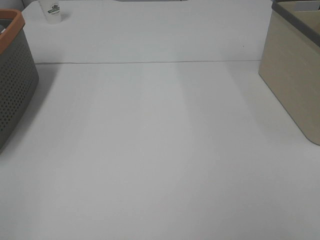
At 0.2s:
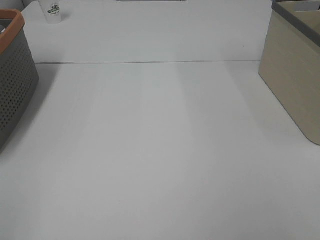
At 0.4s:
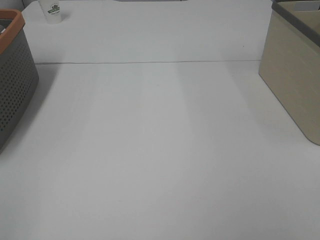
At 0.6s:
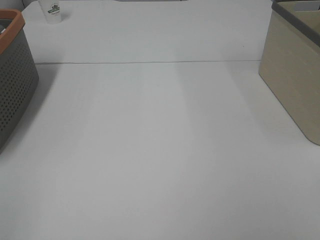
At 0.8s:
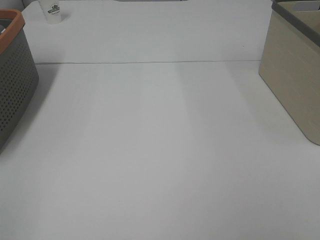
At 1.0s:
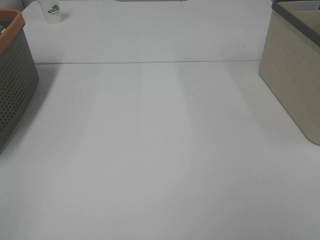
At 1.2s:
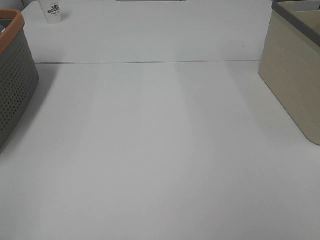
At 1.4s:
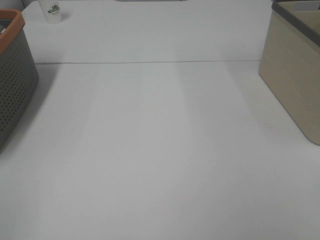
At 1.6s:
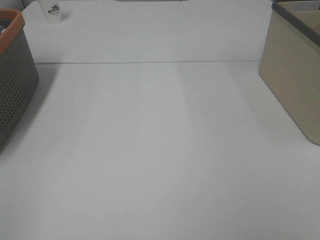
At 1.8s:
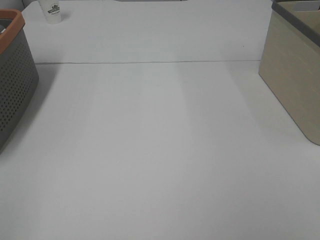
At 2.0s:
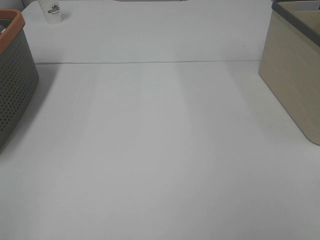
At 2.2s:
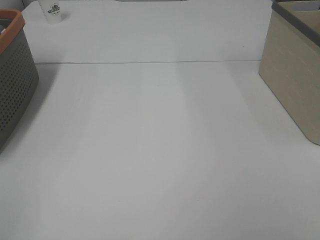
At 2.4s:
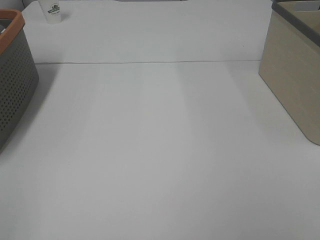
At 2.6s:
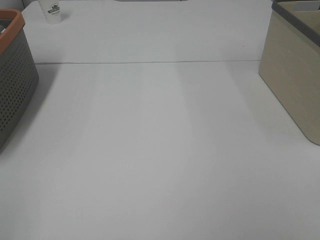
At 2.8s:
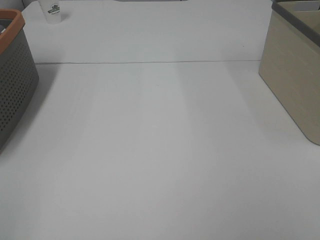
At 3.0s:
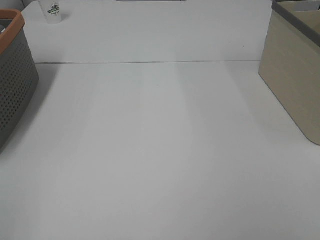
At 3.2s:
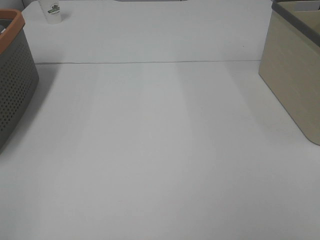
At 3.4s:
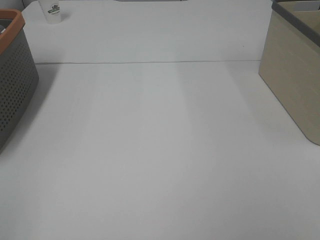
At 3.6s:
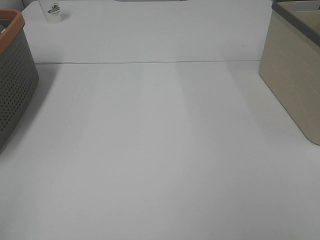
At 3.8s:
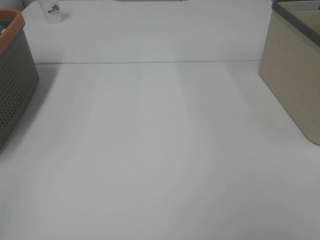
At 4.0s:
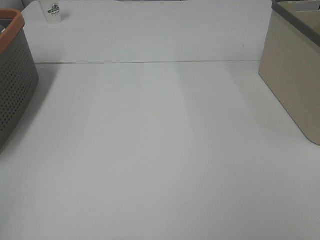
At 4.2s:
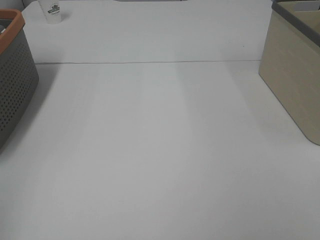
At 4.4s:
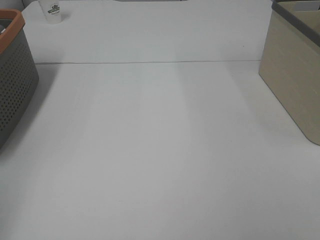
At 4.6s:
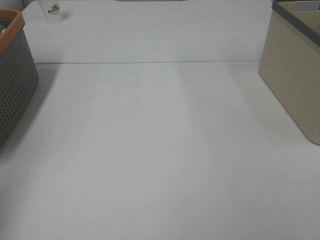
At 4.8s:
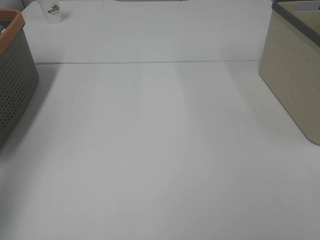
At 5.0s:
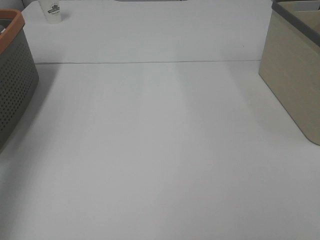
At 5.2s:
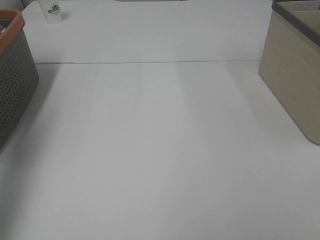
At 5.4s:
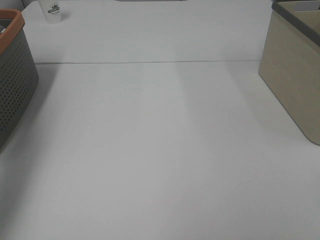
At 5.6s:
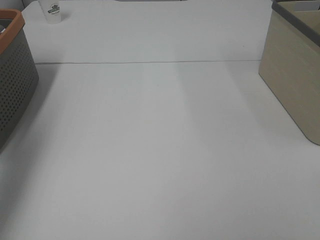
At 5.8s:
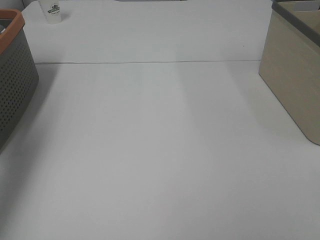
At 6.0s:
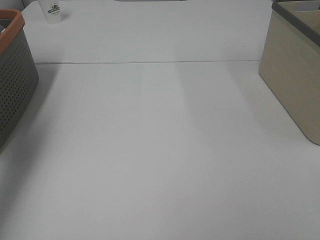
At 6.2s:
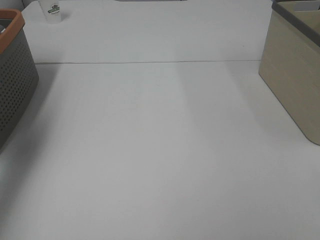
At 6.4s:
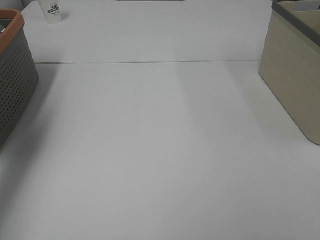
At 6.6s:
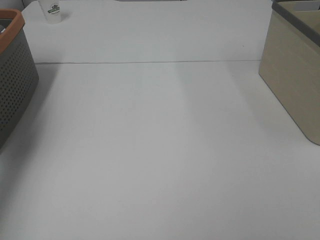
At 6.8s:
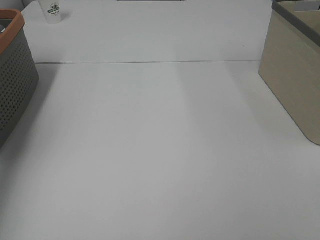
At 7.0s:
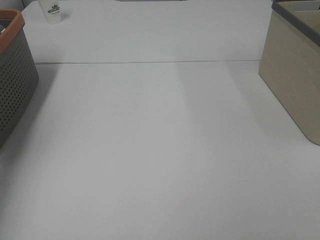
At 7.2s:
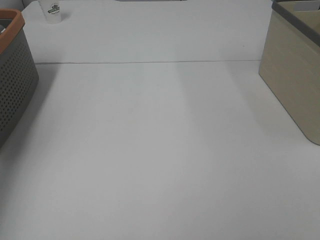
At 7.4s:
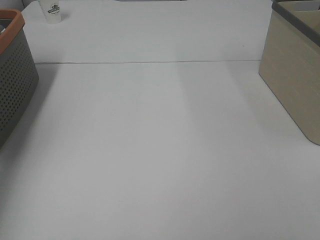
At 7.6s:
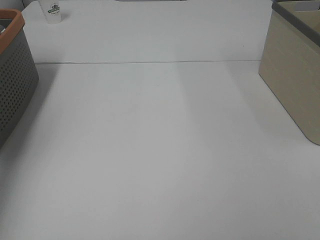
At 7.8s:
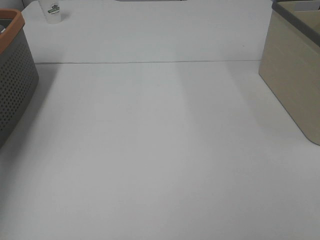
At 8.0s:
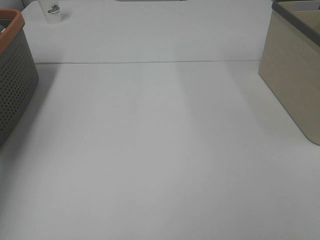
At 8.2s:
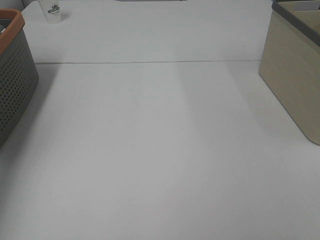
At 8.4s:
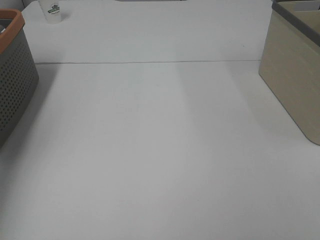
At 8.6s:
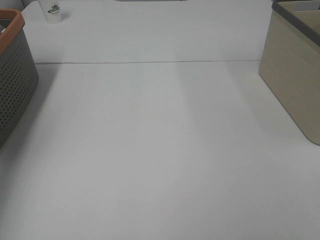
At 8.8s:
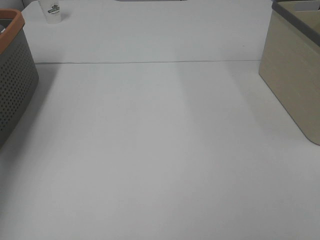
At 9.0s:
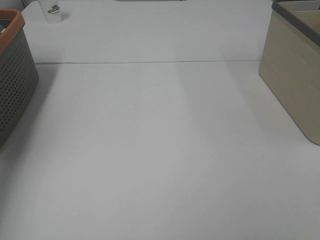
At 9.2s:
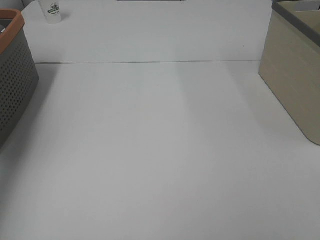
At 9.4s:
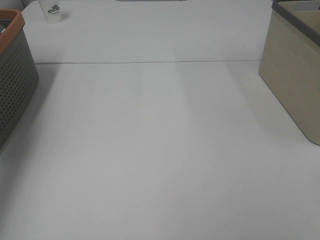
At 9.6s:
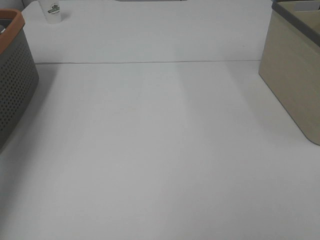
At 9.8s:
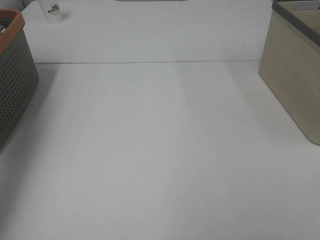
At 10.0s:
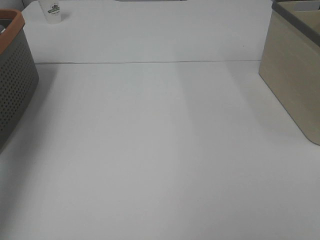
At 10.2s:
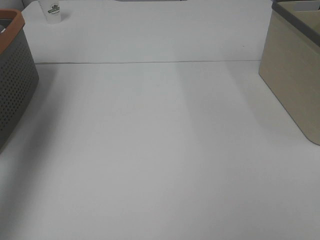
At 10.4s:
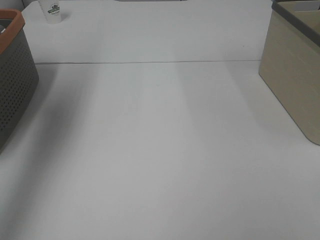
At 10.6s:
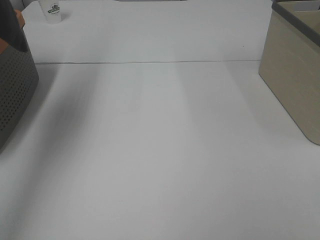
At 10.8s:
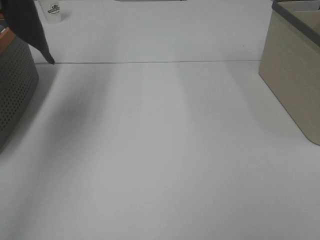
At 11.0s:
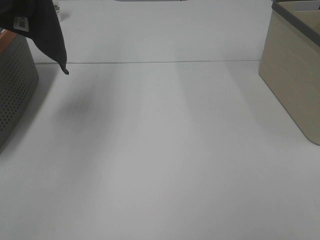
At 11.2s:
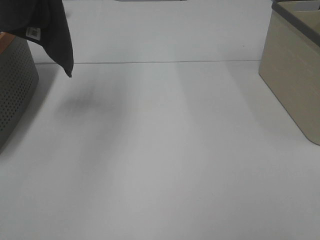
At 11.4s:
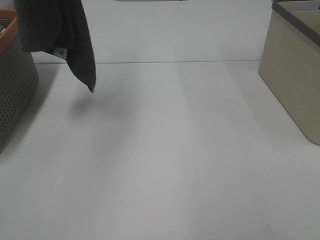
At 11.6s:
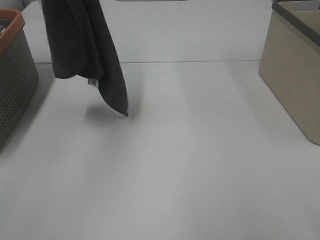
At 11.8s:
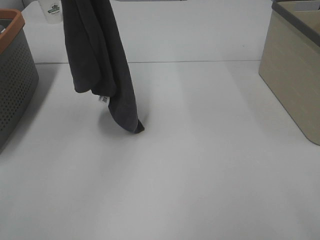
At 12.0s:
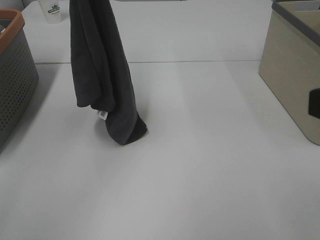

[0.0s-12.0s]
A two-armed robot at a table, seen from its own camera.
Task of the whole recording: Remove the towel and place it.
0.0s to 3.0s: Neither gripper changes place.
4.4s to 6.0s: The left gripper heads forward, covering roughly 30 cm.
6.0s to 7.6s: The left gripper shifts some 10 cm downward and forward.
9.0s to 10.4s: The left gripper travels upward and backward by about 35 cm.
10.4s to 12.0s: The left gripper is displaced to the right and downward by some 20 cm; the right gripper heads forward and to the left, covering approximately 10 cm.

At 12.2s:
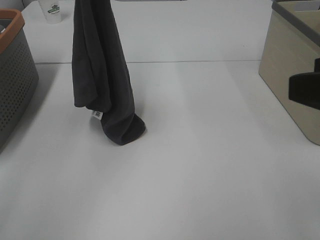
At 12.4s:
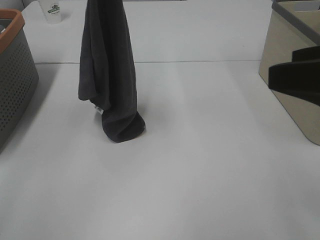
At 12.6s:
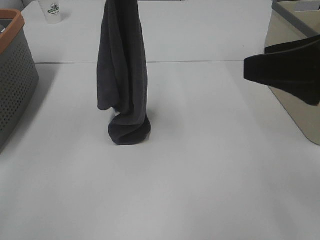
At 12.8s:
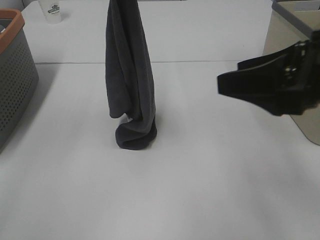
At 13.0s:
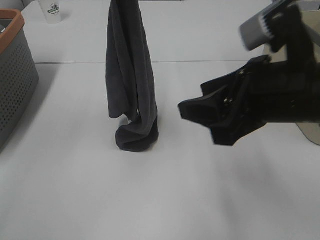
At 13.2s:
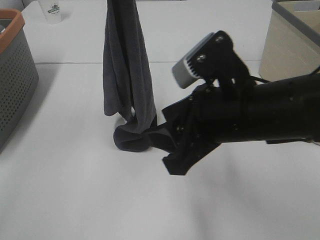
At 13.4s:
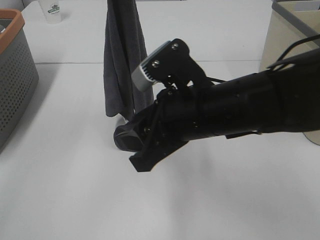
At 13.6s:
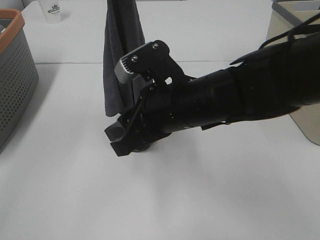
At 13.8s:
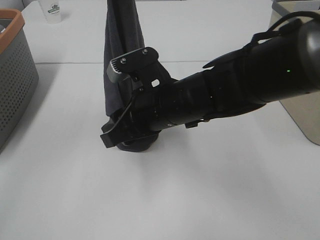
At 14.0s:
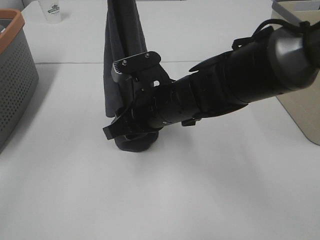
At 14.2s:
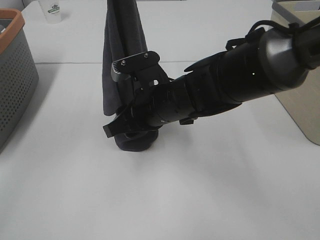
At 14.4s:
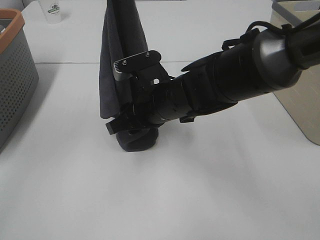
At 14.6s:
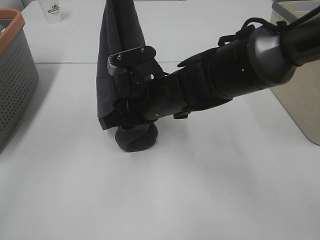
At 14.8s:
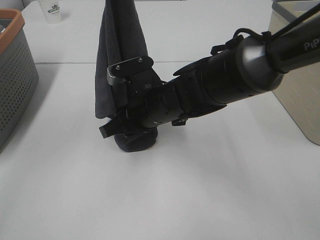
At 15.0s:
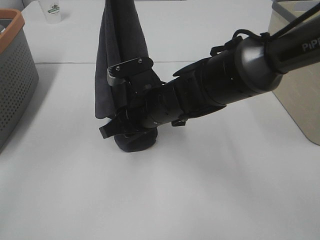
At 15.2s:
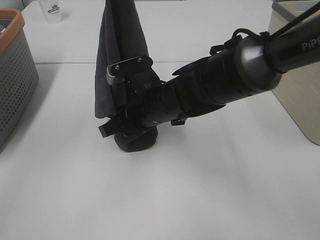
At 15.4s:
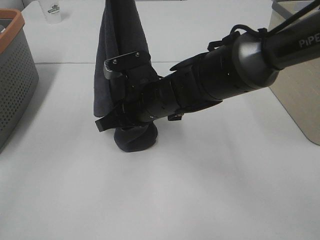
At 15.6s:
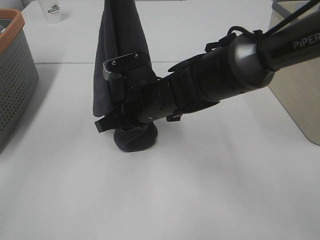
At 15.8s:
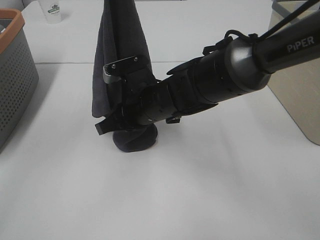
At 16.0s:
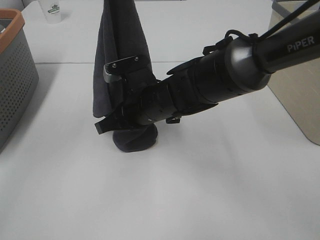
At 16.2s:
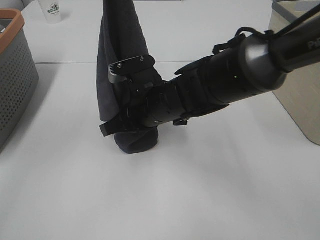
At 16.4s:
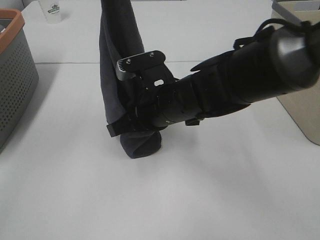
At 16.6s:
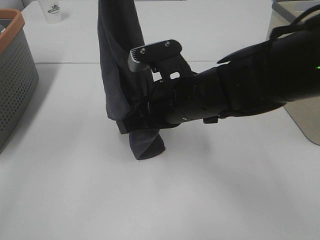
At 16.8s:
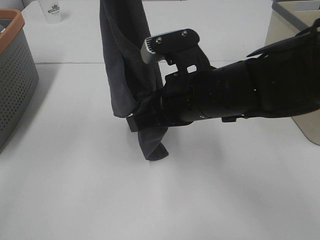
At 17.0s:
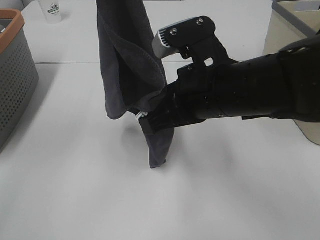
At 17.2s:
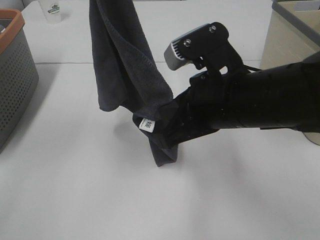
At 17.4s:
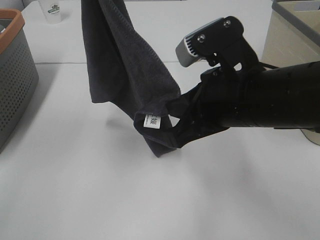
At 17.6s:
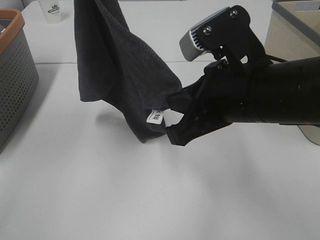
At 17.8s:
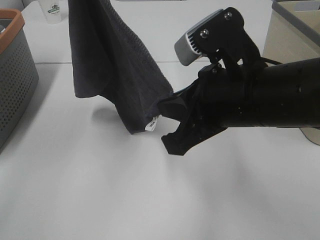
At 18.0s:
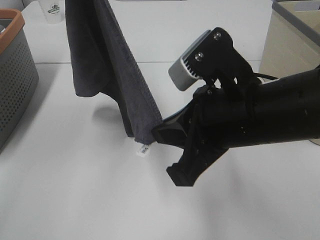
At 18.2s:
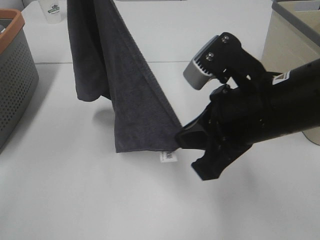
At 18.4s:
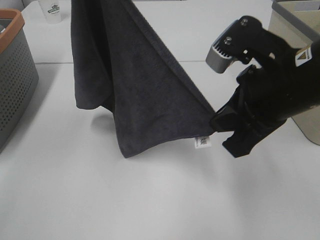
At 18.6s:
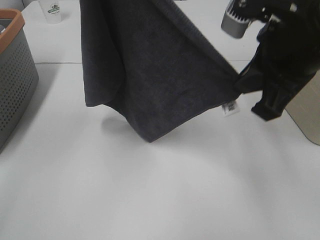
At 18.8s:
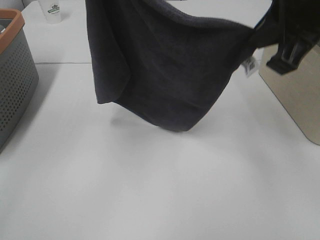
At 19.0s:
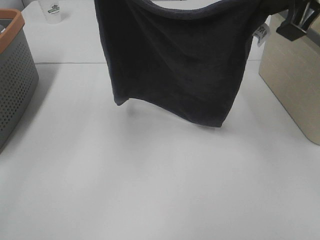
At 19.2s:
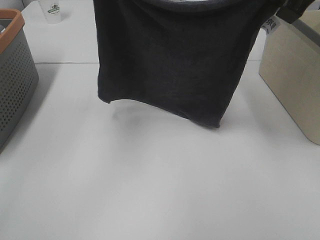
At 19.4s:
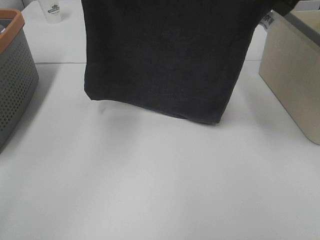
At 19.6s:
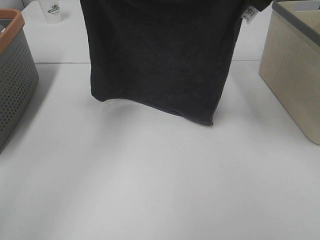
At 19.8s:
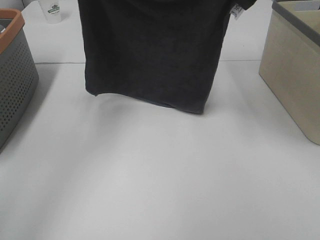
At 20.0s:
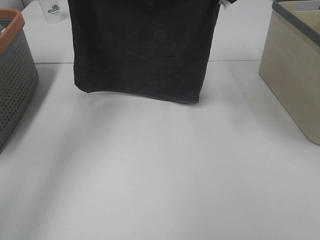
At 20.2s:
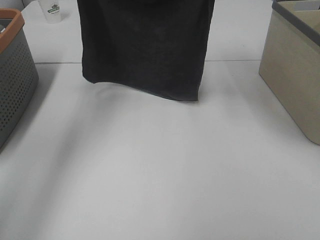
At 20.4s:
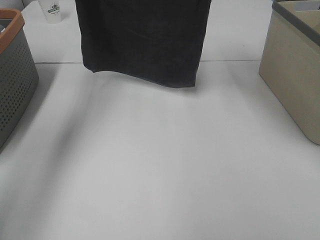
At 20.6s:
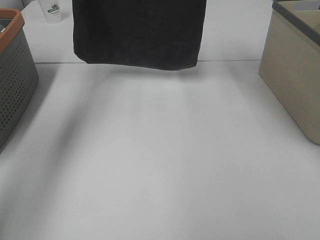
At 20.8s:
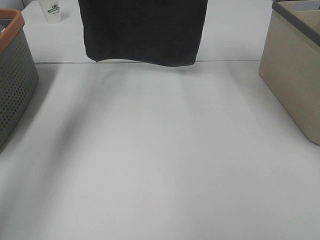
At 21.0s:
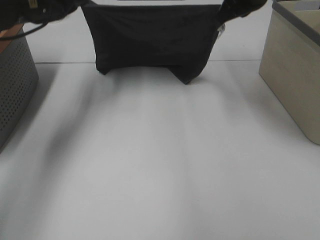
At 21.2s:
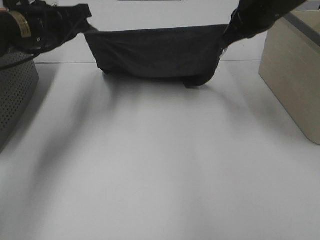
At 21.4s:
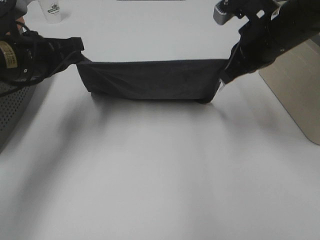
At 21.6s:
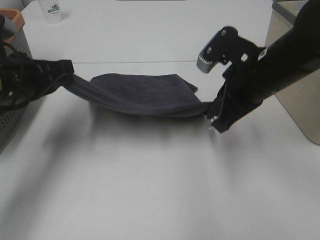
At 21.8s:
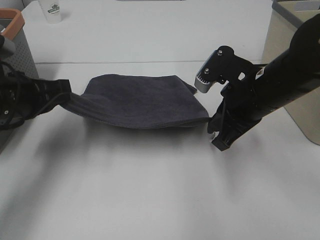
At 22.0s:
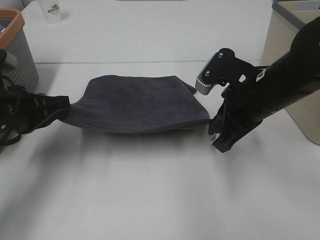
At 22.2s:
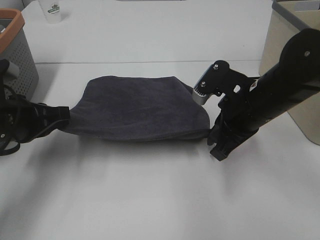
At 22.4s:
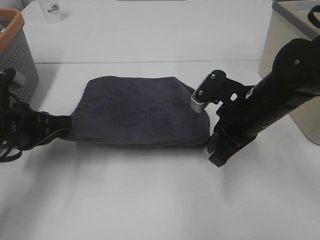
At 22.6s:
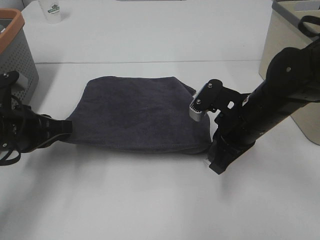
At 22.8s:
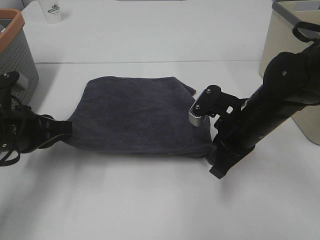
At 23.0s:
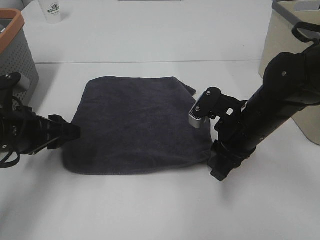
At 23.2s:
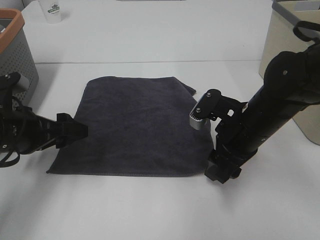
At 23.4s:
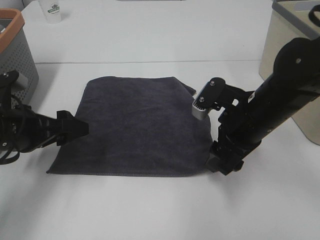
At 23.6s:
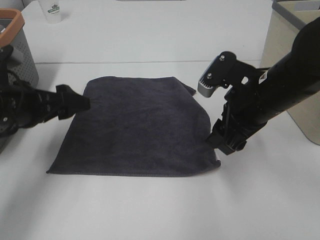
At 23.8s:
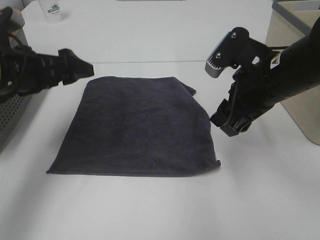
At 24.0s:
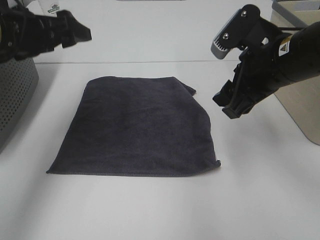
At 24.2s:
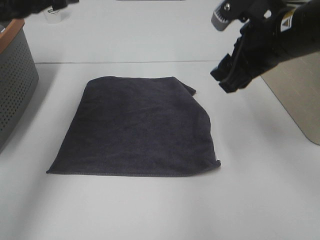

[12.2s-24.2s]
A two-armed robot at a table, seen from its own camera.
Task of the whole recording: Remove the towel and place it.
Step, 12.2s to 16.0s: Right hand: grab a corner of the grey towel and straighten it.
Step, 16.2s to 18.6s: Left hand: spread the grey towel flat on the table.
Step, 16.2s to 18.6s: Right hand: spread the grey towel flat on the table.
12.2s to 13.8s: The right gripper shifts about 30 cm to the left, downward and forward.
13.8s to 15.2s: The right gripper moves roughly 5 cm.
15.2s to 16.6s: The right gripper shifts some 5 cm upward, and closes up.
16.6s to 18.2s: The right gripper heads to the right, backward and upward, covering roughly 10 cm.
18.2s to 19.8s: The right gripper goes approximately 20 cm forward and upward. Meanwhile the left gripper is displaced downward and forward by approximately 10 cm.
19.8s to 21.2s: Both grippers travel together downward, approximately 10 cm.
21.2s to 22.6s: The right gripper moves downward and backward, some 15 cm; the left gripper heads backward and downward, covering approximately 15 cm.
22.6s to 24.2s: The right gripper goes roughly 15 cm upward, and opens up, while the left gripper shifts approximately 20 cm upward and forward, and opens up.
